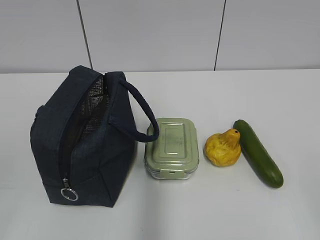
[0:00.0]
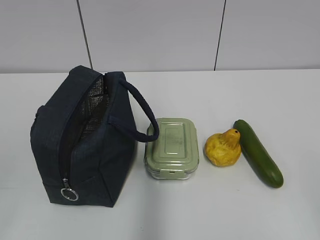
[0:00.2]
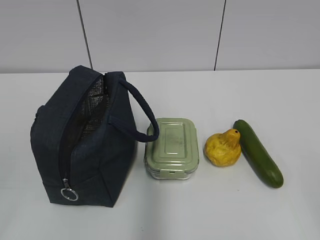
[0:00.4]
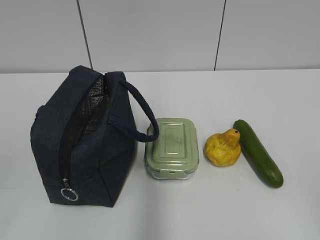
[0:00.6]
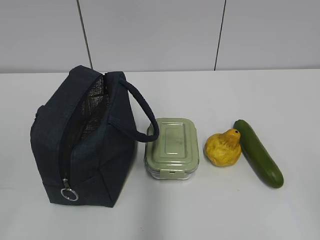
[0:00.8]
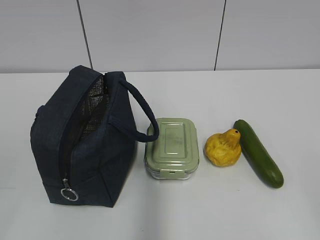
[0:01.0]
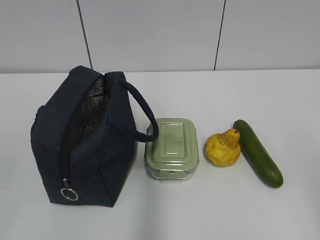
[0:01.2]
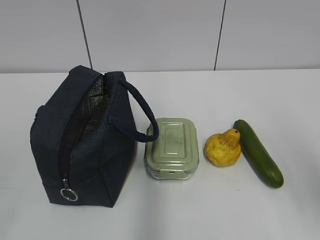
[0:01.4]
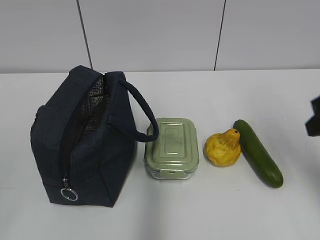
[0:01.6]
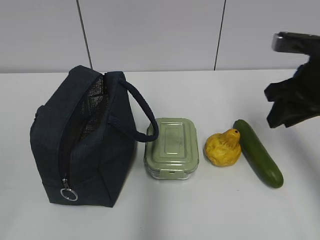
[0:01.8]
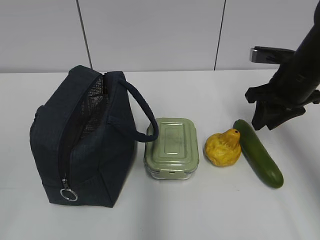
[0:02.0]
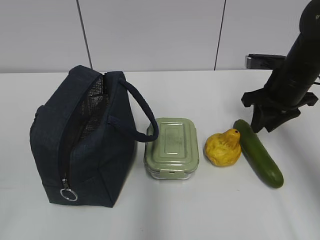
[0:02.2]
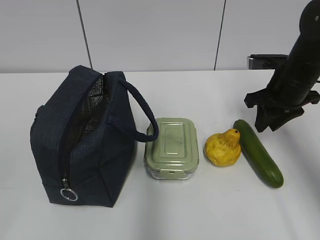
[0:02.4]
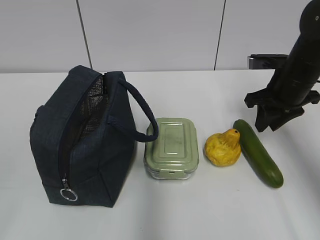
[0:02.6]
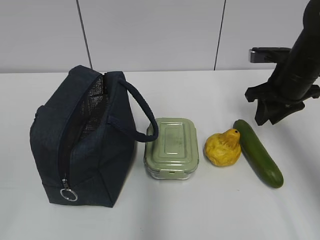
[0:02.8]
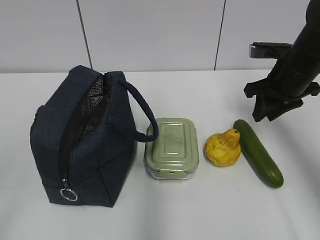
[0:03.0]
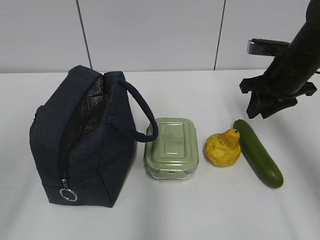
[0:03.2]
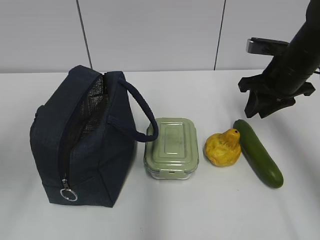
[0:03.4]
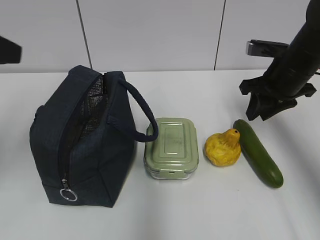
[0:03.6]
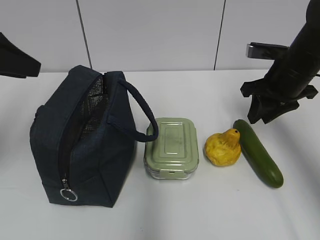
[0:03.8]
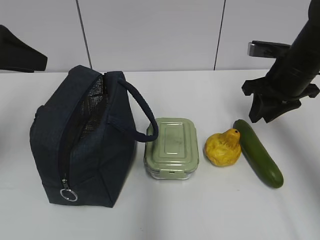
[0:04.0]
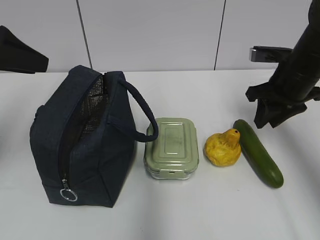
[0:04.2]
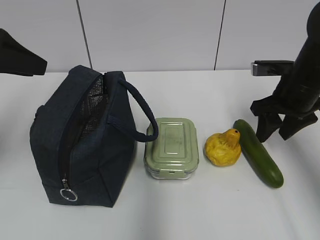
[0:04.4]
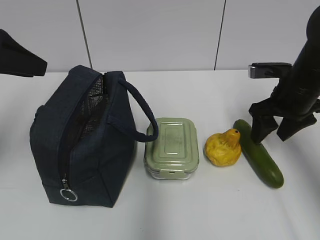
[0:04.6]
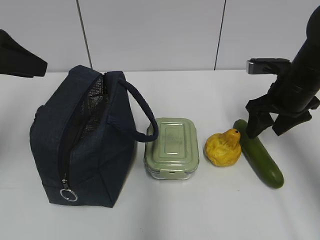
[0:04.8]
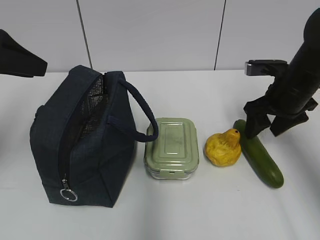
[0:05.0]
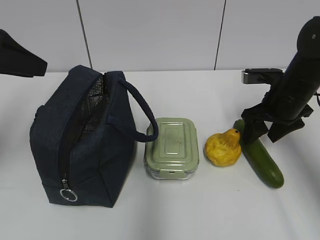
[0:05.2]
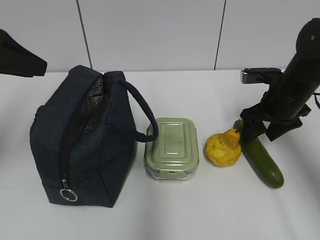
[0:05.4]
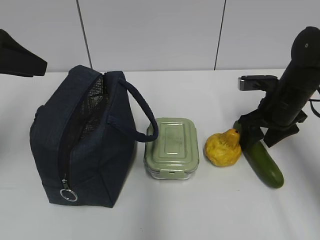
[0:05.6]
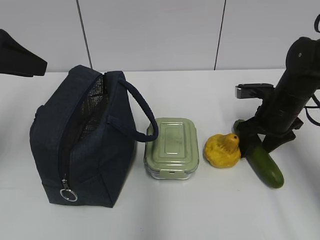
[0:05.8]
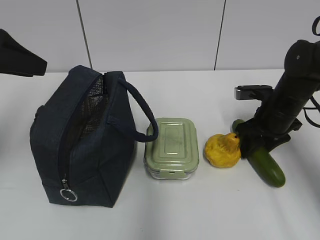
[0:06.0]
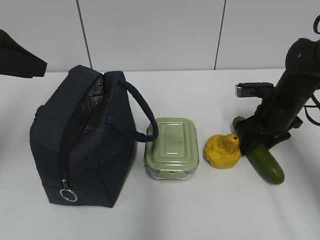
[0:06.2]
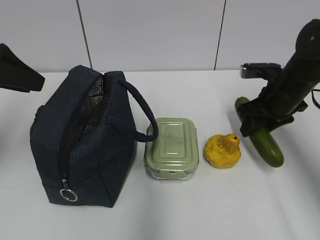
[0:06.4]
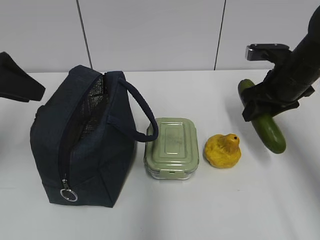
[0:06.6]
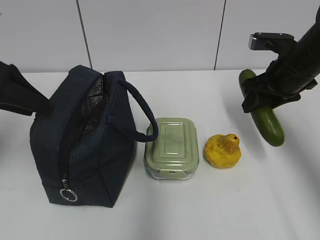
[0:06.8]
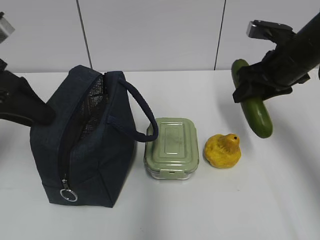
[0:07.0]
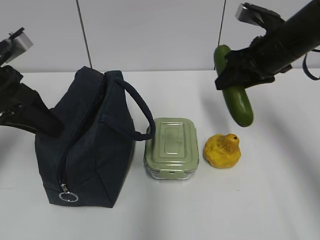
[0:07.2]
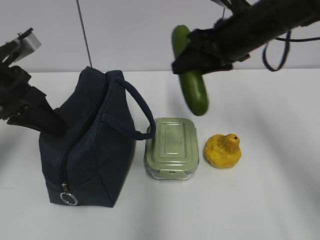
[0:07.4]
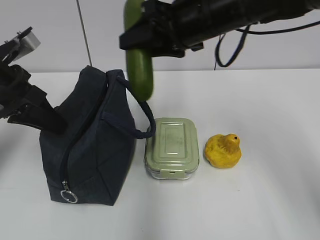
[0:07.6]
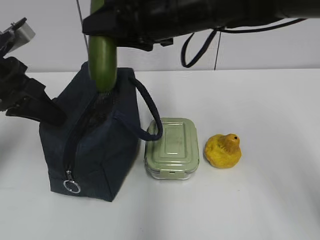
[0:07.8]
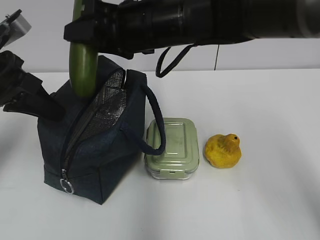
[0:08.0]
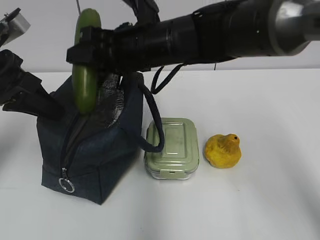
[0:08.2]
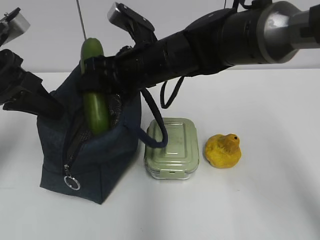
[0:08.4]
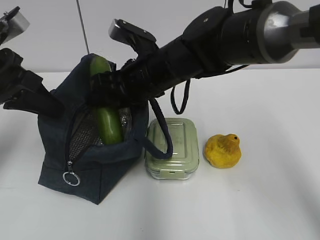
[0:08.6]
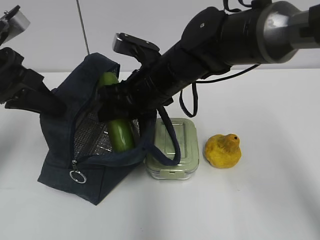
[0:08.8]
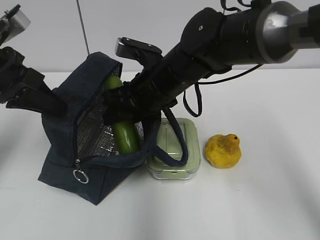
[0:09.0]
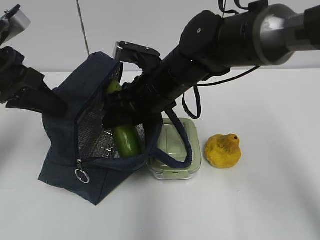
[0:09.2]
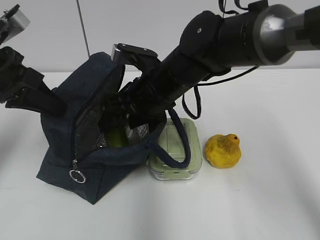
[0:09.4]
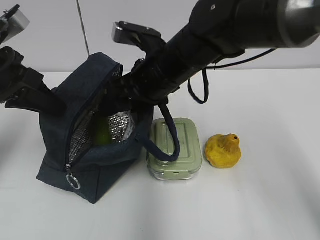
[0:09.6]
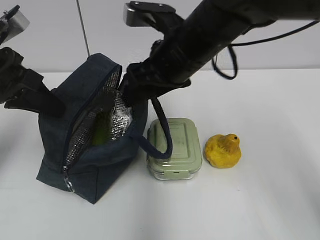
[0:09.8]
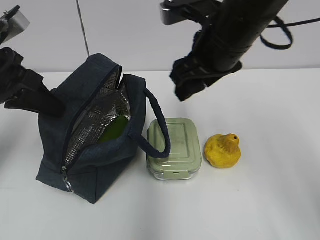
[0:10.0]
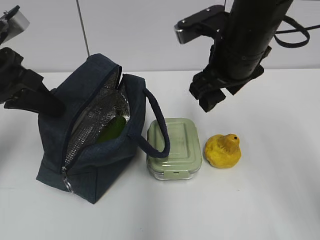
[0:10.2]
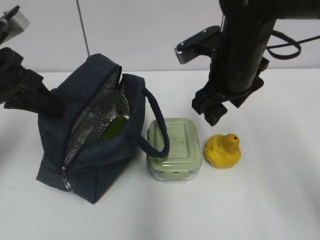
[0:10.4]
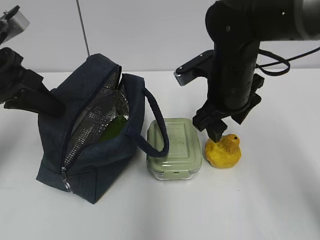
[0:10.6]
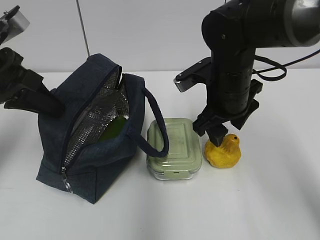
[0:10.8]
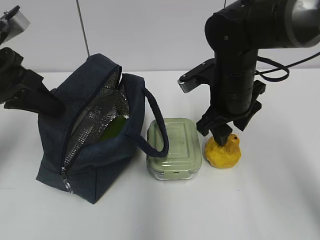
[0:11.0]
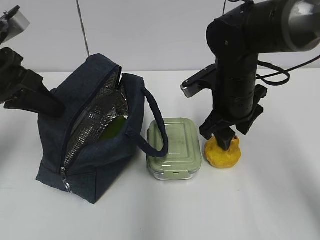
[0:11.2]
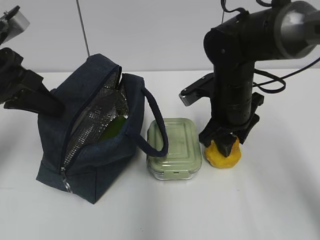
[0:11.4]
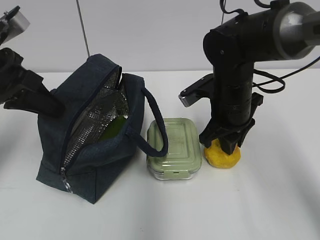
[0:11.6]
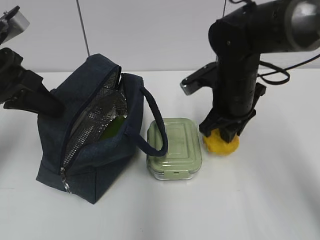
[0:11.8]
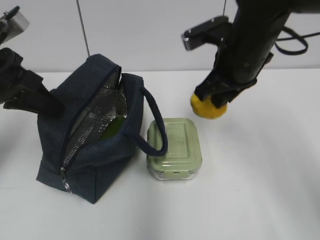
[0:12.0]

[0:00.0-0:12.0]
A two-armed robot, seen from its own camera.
Step, 0.0 to 6.0 s: Grab the cucumber with your right hand.
Step, 6.2 to 8.2 s: Grab the lunch bag with your left hand.
Step, 8.4 to 9.4 s: Place it into the bag with your right hand.
Step, 9.8 to 11.4 s: Grab the pear with your right hand.
1.6 to 3.0 s: The right gripper moves forward and downward, roughly 15 cm.
3.0 to 4.4 s: The right gripper opens up, while the left gripper goes approximately 25 cm forward.
4.4 to 6.0 s: The right gripper is displaced downward by approximately 5 cm.
6.0 to 7.6 s: The right gripper heads upward and to the left, covering about 25 cm; the left gripper is displaced downward by about 5 cm, and closes its fingers.
7.6 to 9.0 s: The right gripper moves downward and to the left, approximately 10 cm.
9.0 to 10.4 s: The right gripper is displaced to the right by approximately 10 cm.
10.4 to 12.0 s: The right gripper goes downward and returns, some 5 cm each way, and closes up.

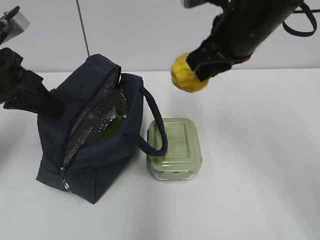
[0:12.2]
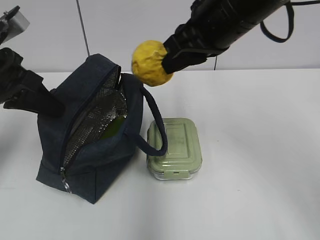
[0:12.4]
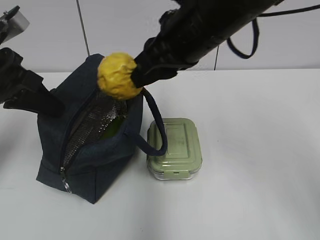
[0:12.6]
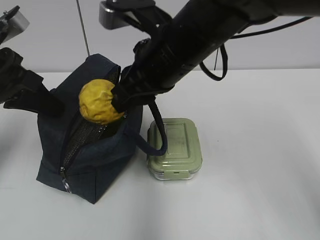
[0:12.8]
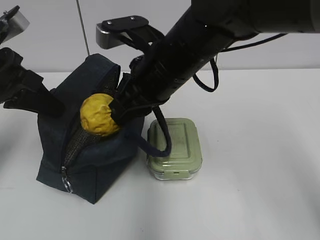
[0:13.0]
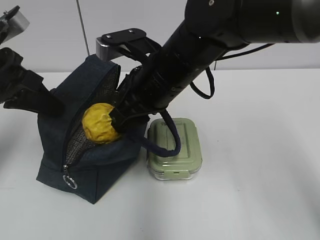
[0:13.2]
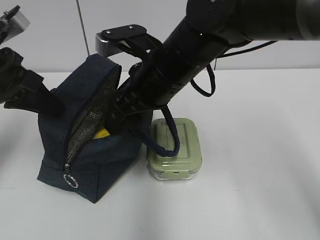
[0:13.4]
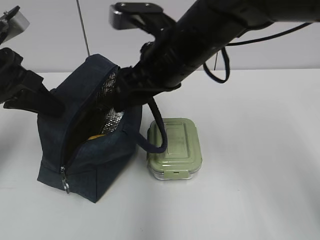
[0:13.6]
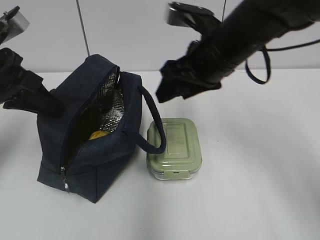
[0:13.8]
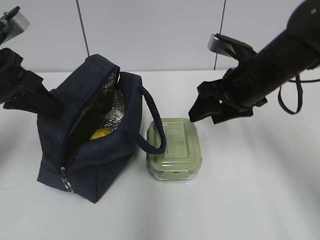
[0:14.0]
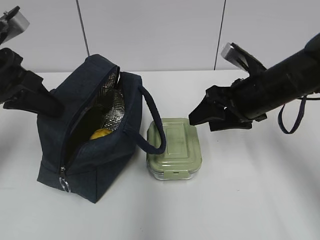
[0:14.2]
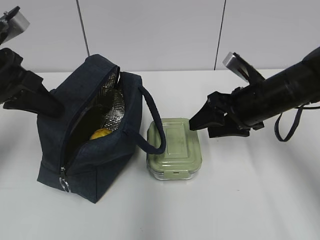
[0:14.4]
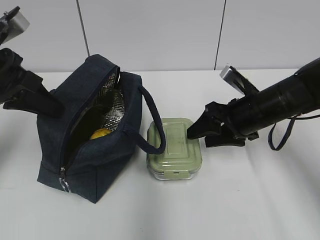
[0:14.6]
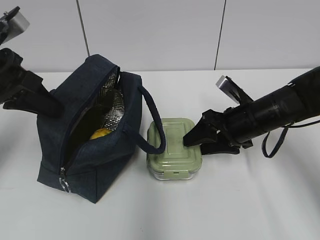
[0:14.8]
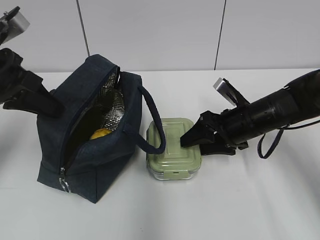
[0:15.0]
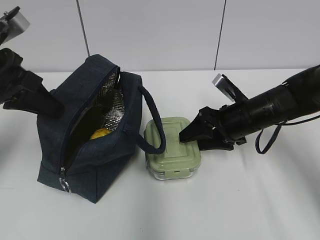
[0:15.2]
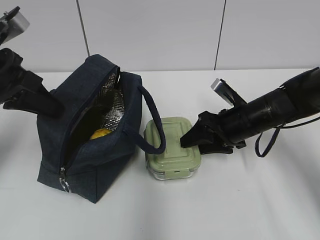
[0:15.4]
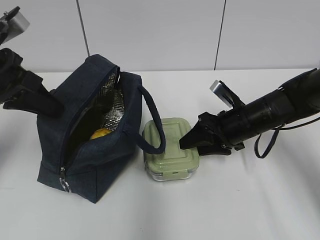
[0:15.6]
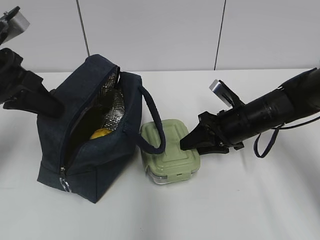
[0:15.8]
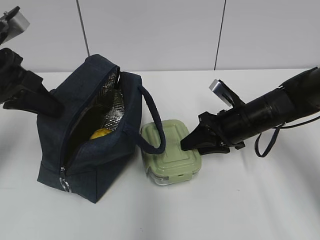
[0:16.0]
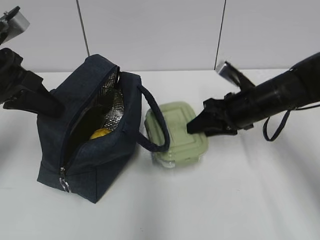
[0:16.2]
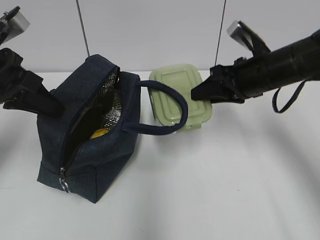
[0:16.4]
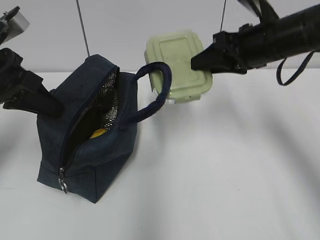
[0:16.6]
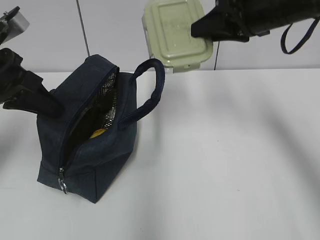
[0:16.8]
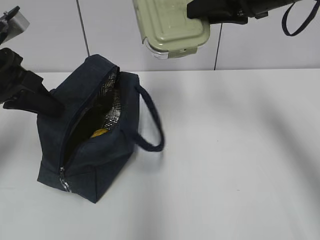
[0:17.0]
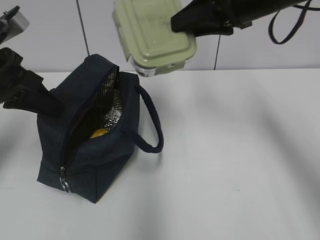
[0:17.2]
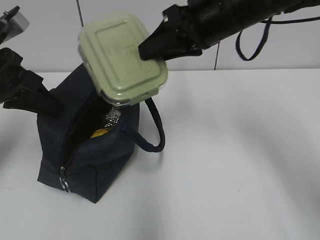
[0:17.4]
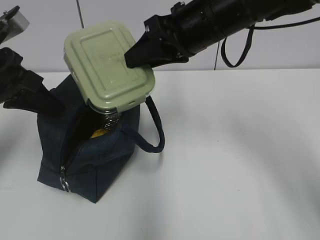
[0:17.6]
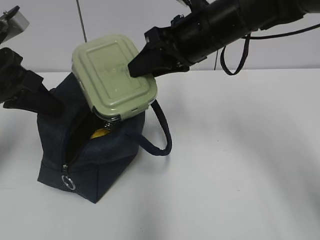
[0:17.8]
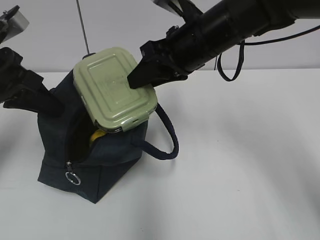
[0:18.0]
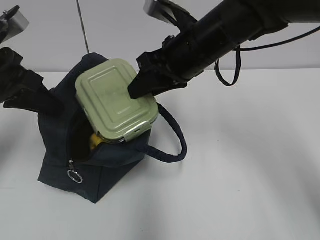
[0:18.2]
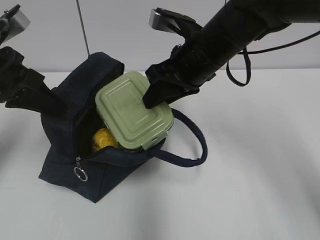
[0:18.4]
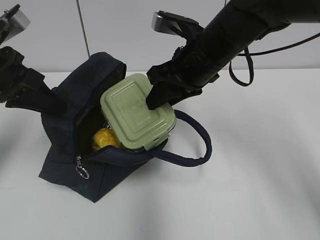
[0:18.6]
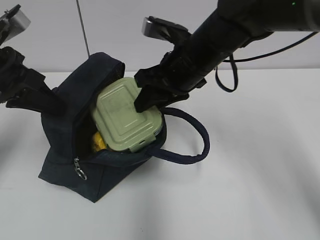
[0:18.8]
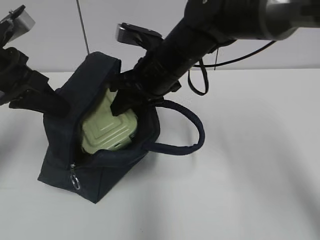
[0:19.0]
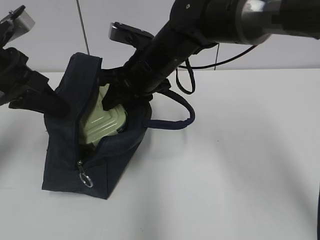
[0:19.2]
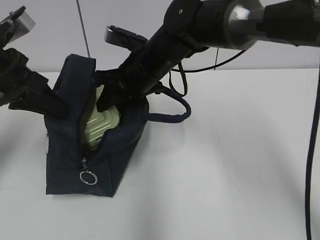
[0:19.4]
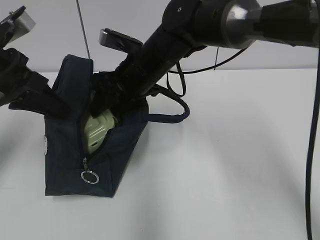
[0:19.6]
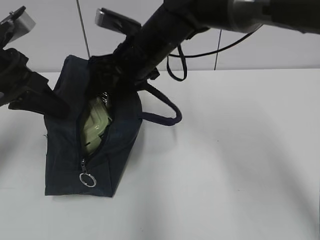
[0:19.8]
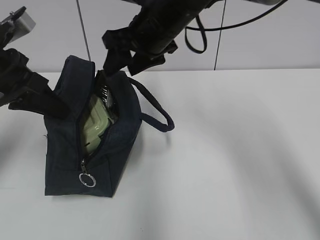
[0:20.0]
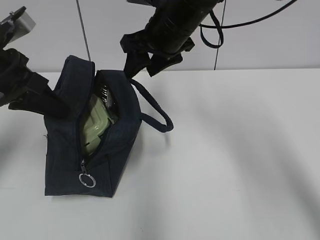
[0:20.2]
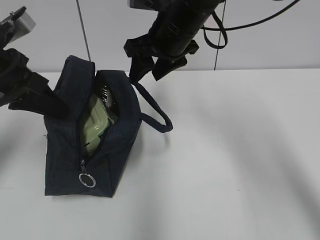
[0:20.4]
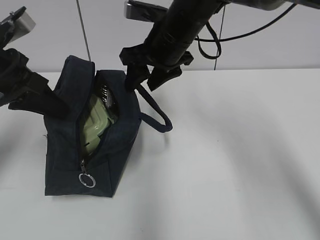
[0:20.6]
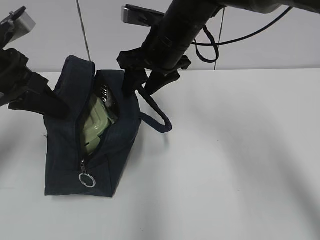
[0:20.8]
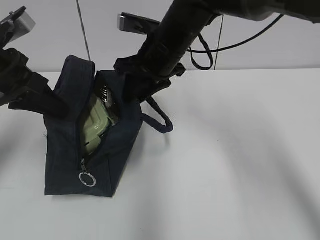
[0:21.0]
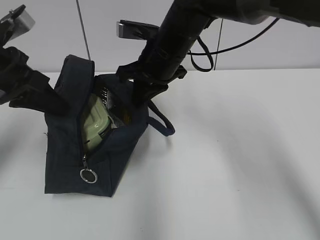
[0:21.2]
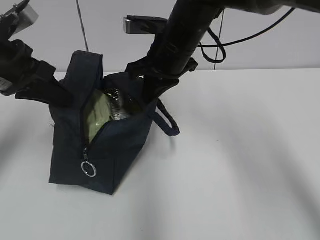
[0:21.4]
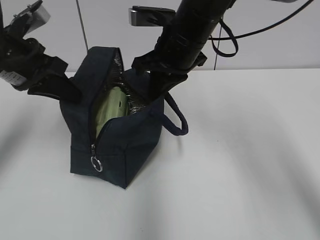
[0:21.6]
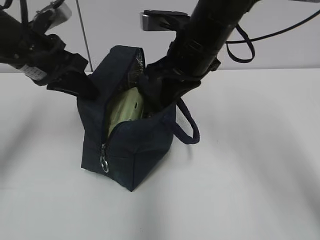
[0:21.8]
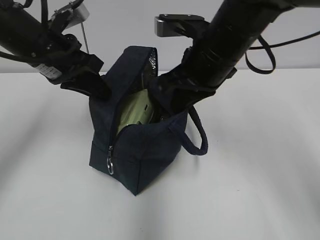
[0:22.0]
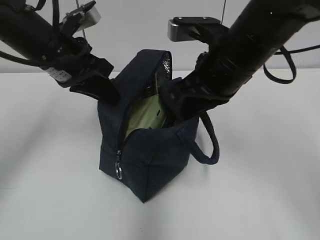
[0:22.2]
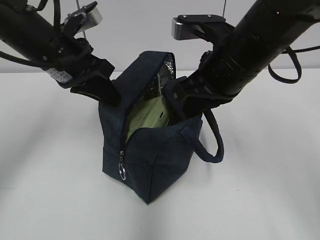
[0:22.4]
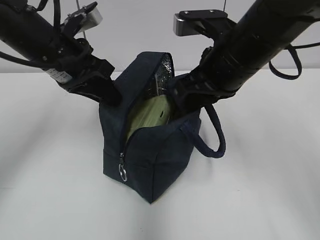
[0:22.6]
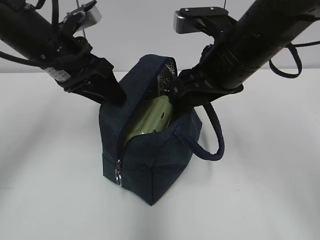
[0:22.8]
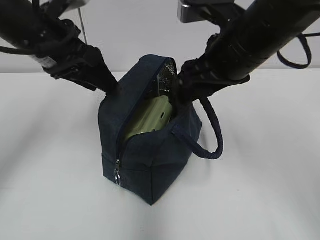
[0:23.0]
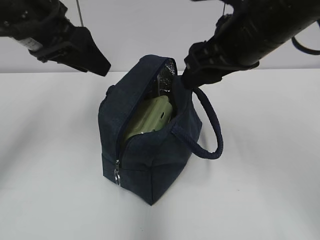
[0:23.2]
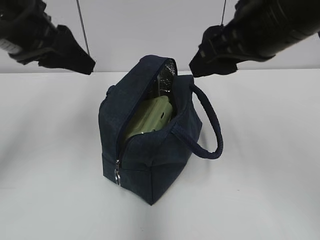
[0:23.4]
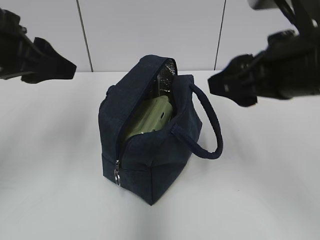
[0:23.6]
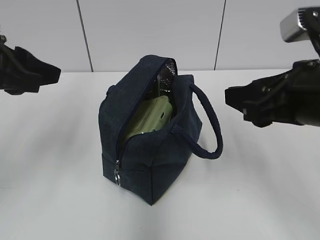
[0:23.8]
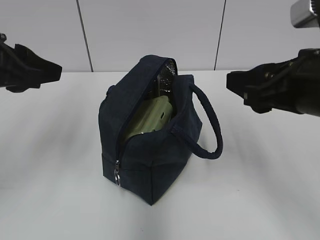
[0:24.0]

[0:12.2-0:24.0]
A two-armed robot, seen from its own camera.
Step, 12.2 to 13.2 s: Place it into the bag with your right hand.
Step, 13.6 to 15.8 s: Grab the lunch box with your right hand.
Step, 20.0 to 21.2 s: Grab the lunch bag with your right hand.
Step, 21.4 to 22.8 s: Move the lunch bag to the right.
12.2 to 13.6 s: The right gripper is displaced to the left by some 5 cm, and opens.
13.6 to 15.2 s: The right gripper travels downward and to the right by roughly 20 cm.
15.2 to 16.6 s: The right gripper heads upward, covering some 15 cm, and closes up.
16.6 to 18.2 s: The right gripper shifts some 10 cm to the left.
18.2 to 19.6 s: The right gripper goes roughly 10 cm to the left, and opens its fingers.
19.6 to 21.0 s: The right gripper closes its fingers.
21.0 to 22.6 s: The right gripper travels backward and to the right by approximately 10 cm. Meanwhile the left gripper heads to the right and forward, covering some 10 cm, and opens its fingers.
22.6 to 24.0 s: The right gripper moves backward and to the right, some 10 cm, and opens its fingers; the left gripper goes some 10 cm backward and to the left.
